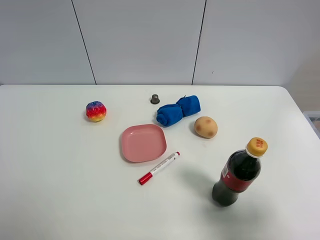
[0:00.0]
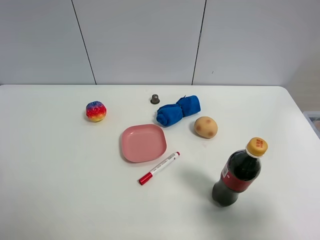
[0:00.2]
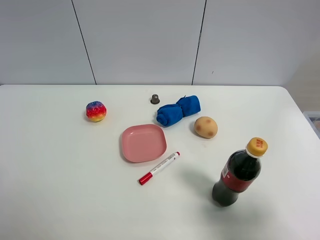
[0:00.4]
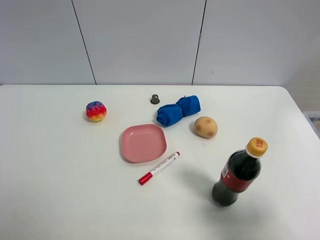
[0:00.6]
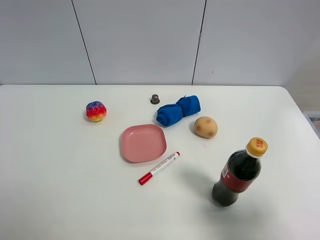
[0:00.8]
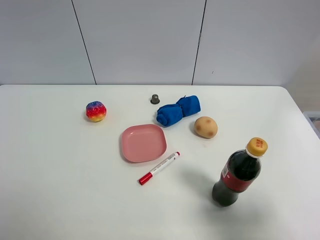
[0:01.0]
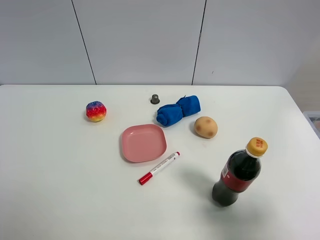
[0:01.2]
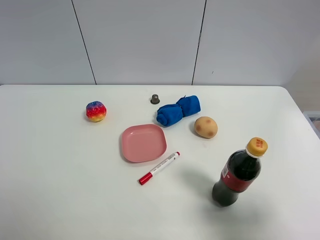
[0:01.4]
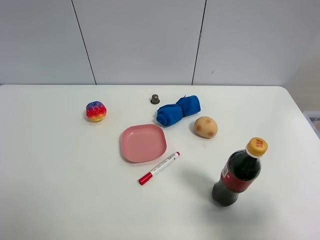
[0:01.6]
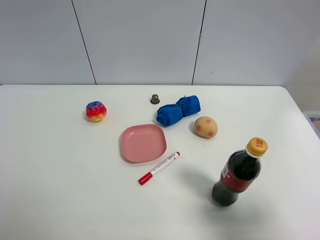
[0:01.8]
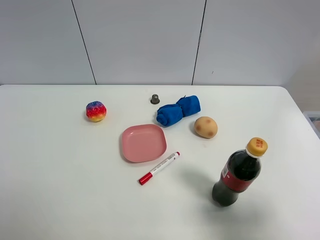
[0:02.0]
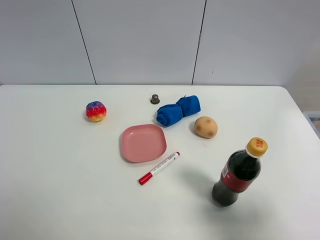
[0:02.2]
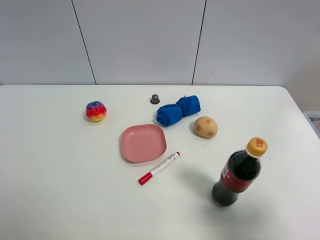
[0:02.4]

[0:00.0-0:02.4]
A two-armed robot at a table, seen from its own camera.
Task of the whole recording: the gripper move the object.
0:01.2 to 0:02.4: Both grippers stay about where they are.

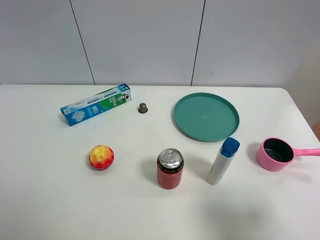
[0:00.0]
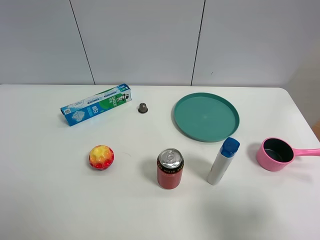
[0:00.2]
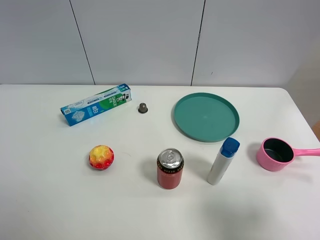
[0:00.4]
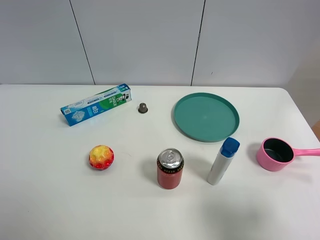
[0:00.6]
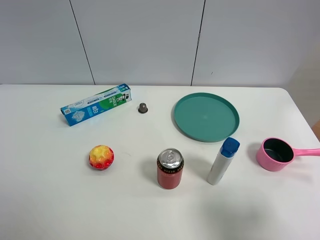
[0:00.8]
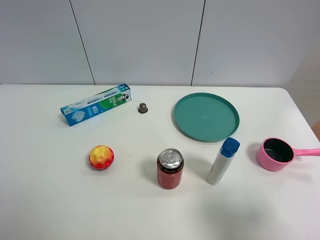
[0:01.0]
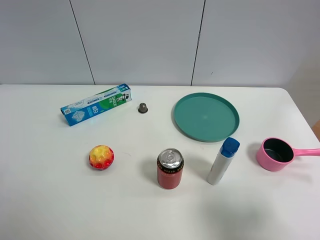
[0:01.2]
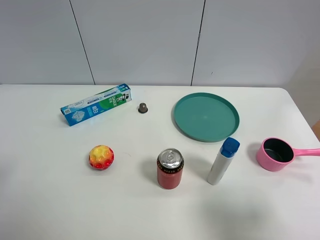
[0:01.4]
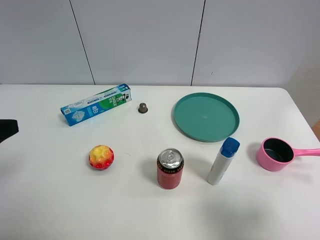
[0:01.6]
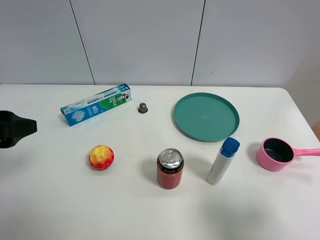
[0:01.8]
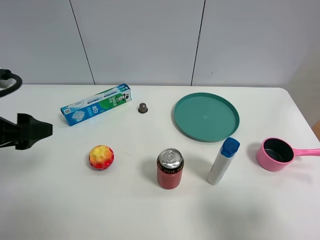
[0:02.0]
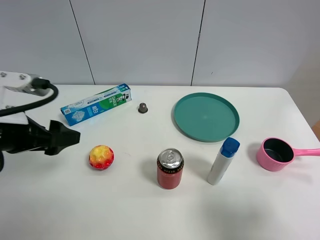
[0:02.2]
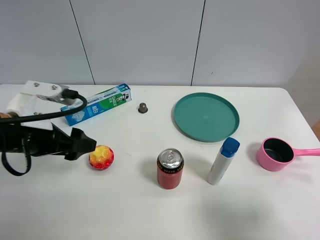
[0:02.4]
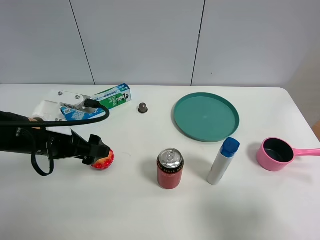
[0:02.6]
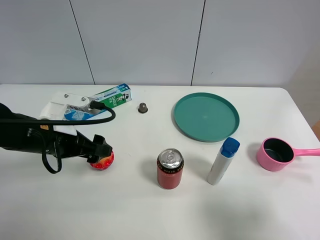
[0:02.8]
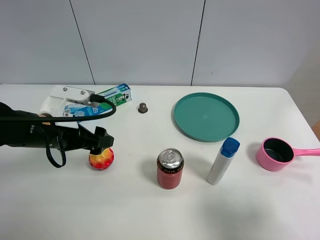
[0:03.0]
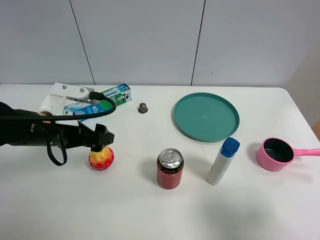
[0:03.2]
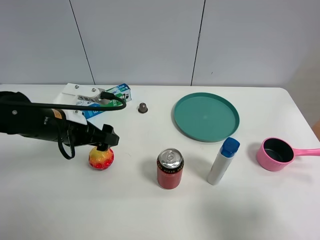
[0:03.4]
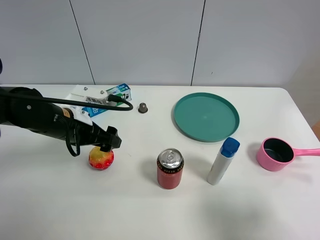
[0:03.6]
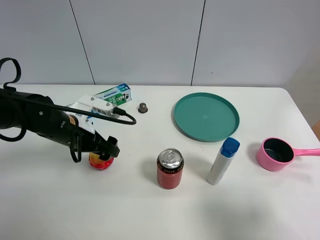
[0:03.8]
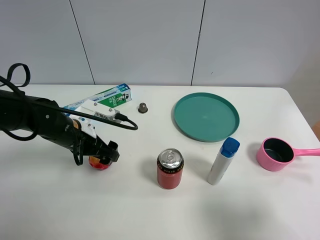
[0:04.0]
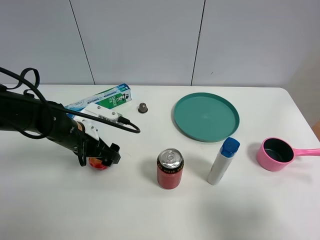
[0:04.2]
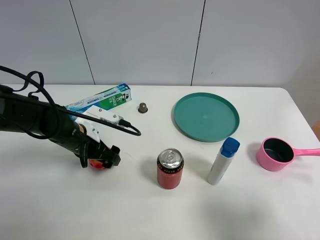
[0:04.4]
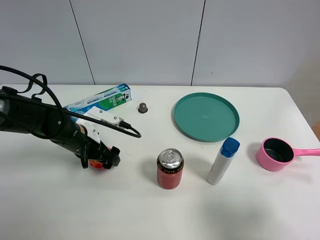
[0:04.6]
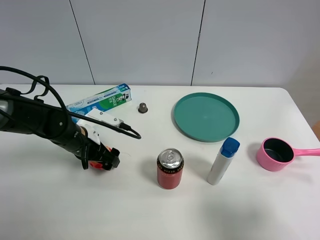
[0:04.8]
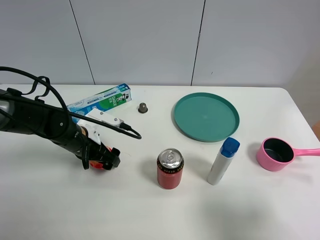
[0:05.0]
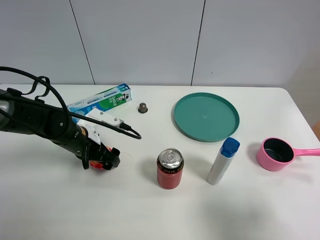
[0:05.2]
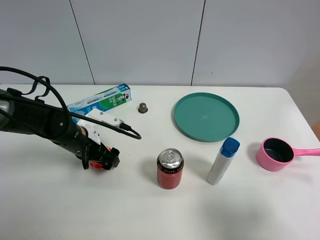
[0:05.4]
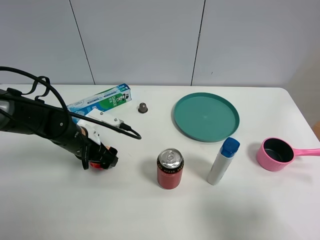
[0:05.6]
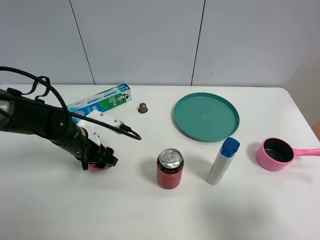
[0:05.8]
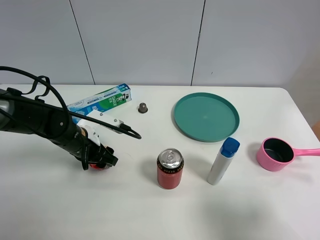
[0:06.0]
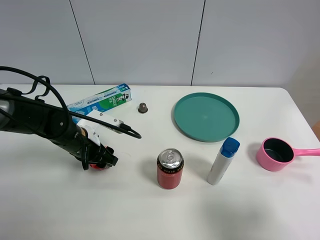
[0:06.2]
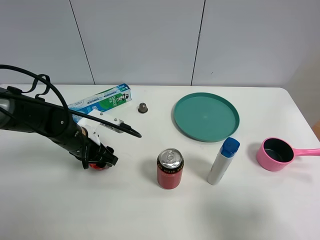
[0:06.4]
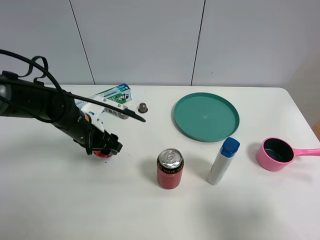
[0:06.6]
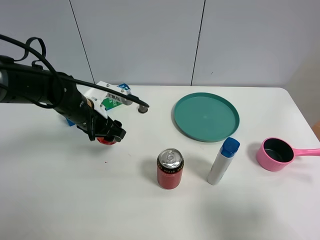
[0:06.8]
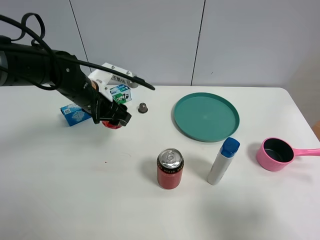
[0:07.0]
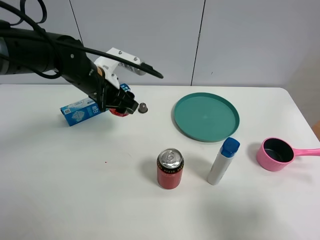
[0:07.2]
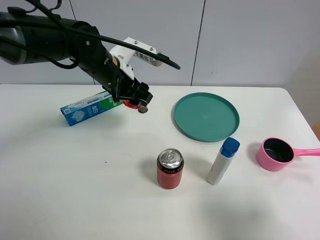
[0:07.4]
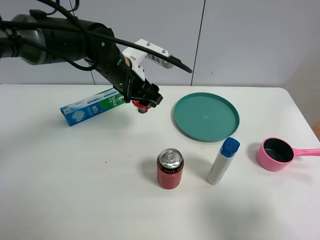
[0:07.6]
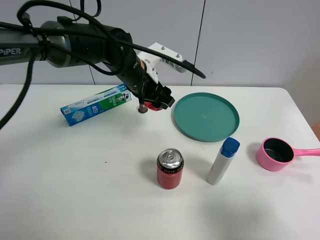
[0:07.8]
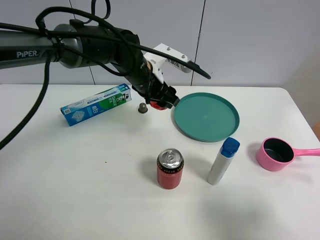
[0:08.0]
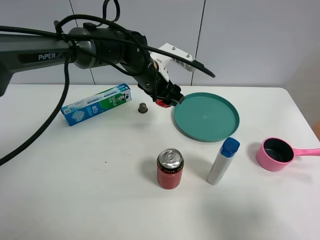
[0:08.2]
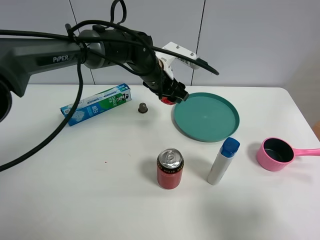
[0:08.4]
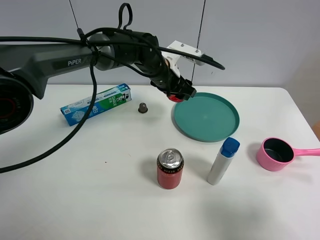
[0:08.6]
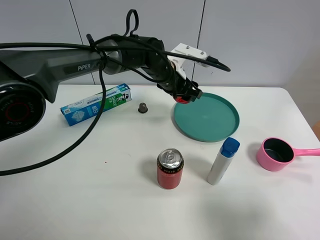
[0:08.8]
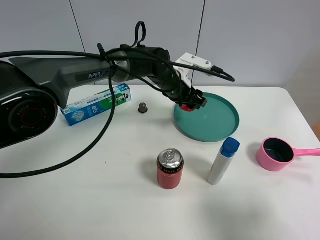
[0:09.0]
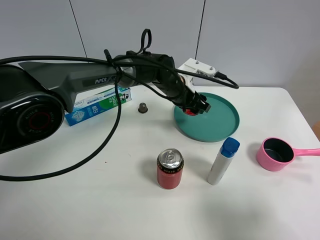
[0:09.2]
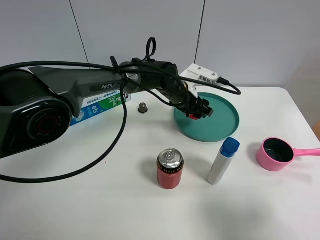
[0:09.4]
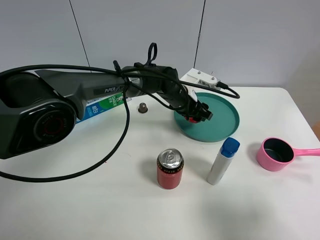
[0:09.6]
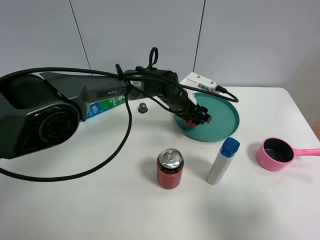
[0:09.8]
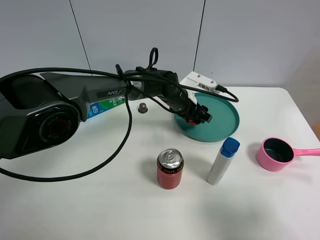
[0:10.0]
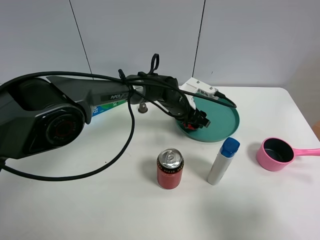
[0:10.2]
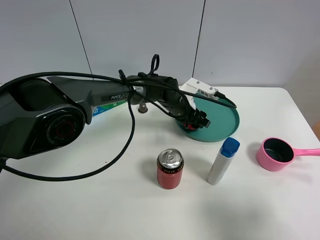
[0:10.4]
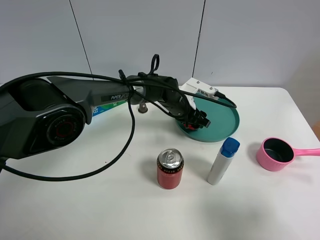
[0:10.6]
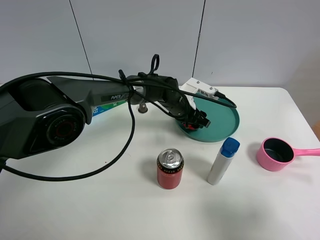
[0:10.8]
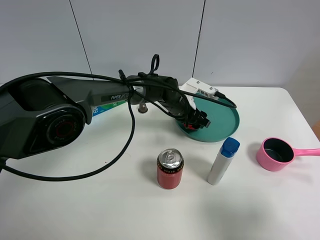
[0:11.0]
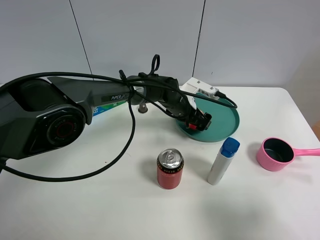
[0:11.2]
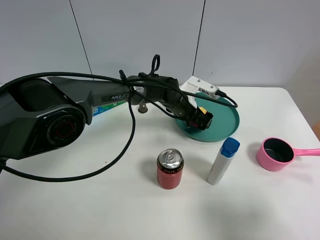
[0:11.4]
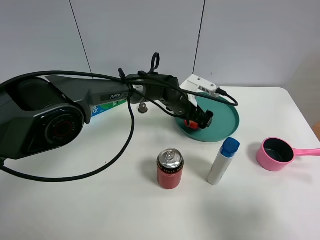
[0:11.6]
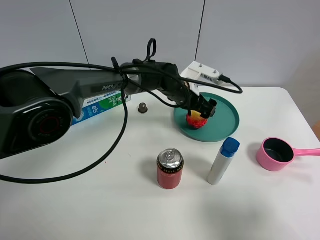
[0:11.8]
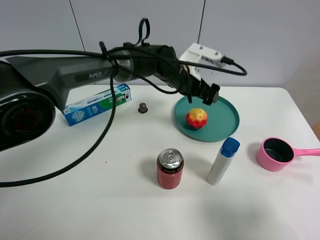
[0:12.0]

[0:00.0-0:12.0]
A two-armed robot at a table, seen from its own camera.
Task of the whole recording: the gripper move the object.
Step, 0:00.0 to 0:05.8: Grasp the colorful ball with the left gripper.
Step, 0:06.0 to 0:11.2: Place the colorful ball into the green plate with the left gripper.
0:01.6 to 0:03.0: The left gripper moves forward, downward and to the right, about 20 cm.
0:03.0 to 0:04.4: The left gripper heads downward, covering some 10 cm.
0:04.4 to 0:06.0: The left gripper closes its fingers.
0:06.0 to 0:07.6: The left gripper moves upward, to the right and forward, about 20 cm.
0:07.6 to 0:09.0: The left gripper goes roughly 15 cm to the right, downward and forward.
0:09.0 to 0:10.4: The left gripper travels downward by approximately 5 cm.
0:10.4 to 0:12.0: The left gripper heads upward, covering approximately 10 cm, and opens its fingers.

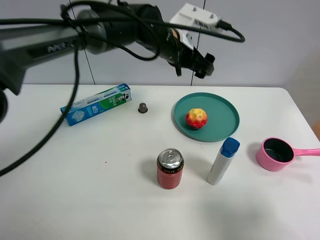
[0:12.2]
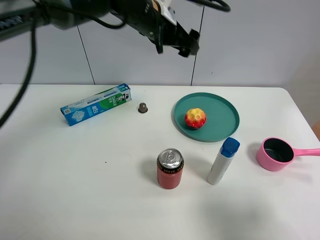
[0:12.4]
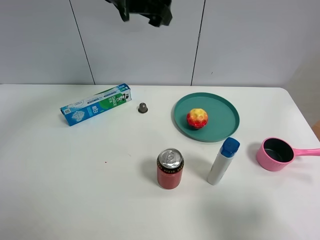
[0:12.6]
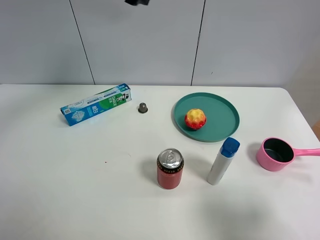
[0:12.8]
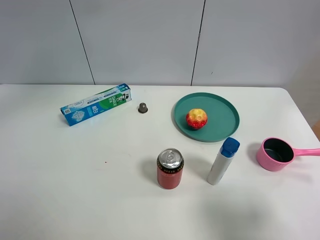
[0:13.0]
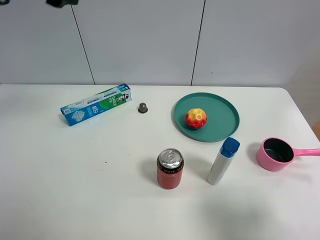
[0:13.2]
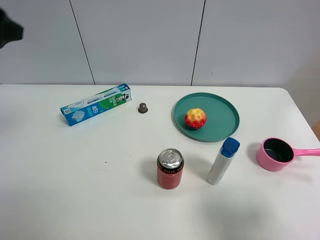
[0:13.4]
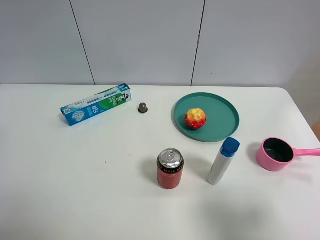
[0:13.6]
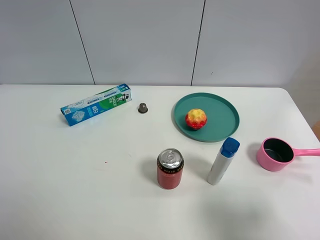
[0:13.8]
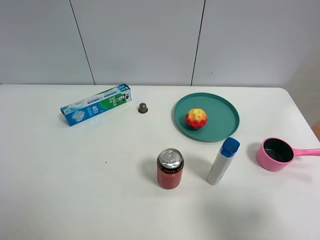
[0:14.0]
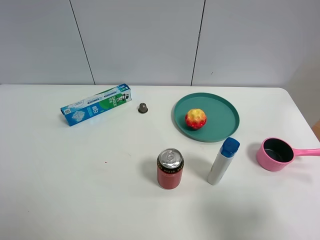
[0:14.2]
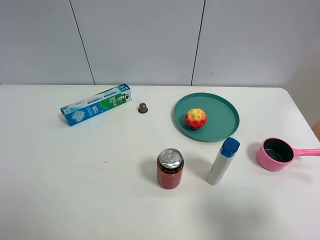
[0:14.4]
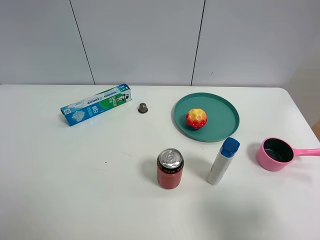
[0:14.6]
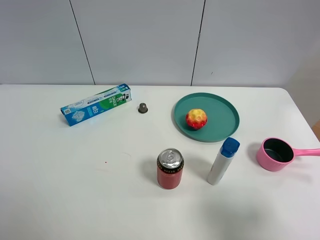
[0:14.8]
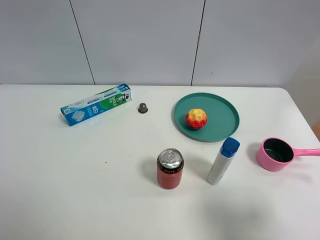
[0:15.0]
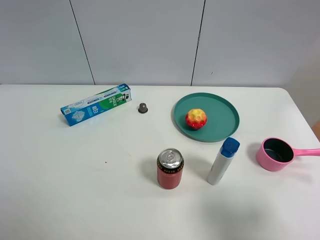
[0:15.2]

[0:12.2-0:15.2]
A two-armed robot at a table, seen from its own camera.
Task of the whole recording: the gripper move the object.
0:12.2 to 0:13.8: The left gripper moves to the left and backward, roughly 50 cm.

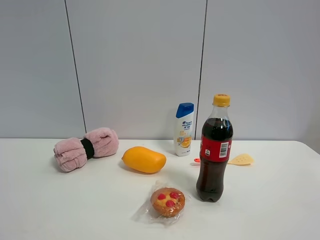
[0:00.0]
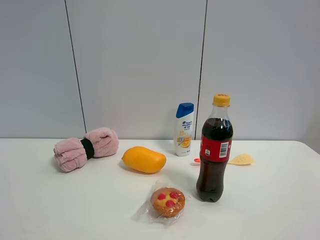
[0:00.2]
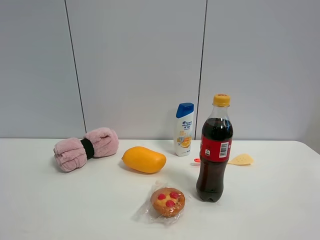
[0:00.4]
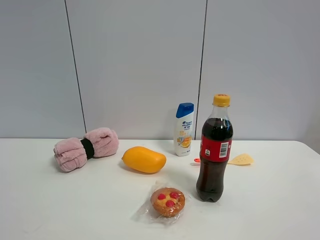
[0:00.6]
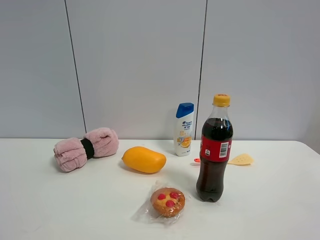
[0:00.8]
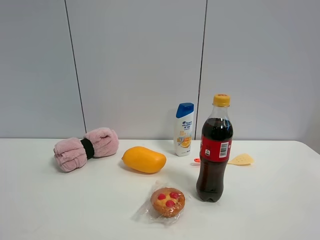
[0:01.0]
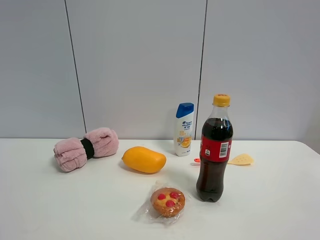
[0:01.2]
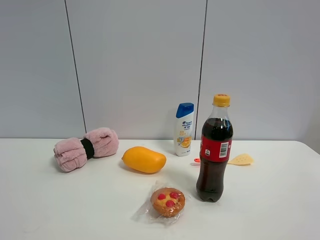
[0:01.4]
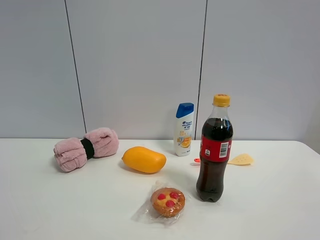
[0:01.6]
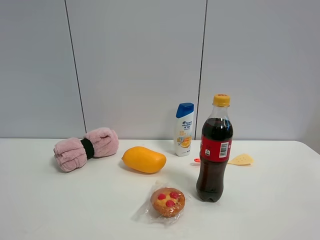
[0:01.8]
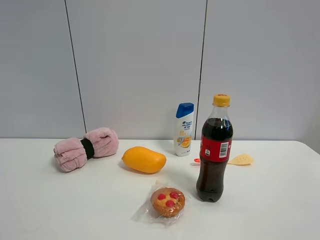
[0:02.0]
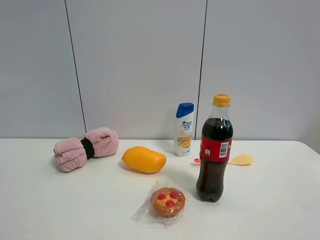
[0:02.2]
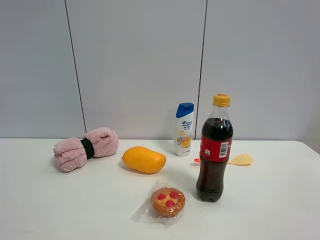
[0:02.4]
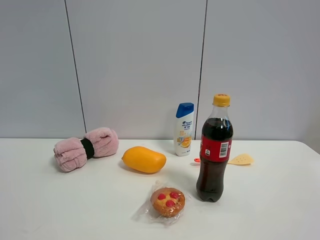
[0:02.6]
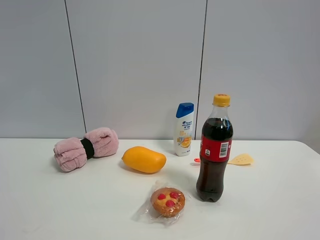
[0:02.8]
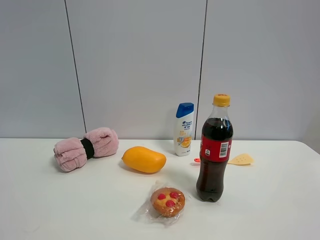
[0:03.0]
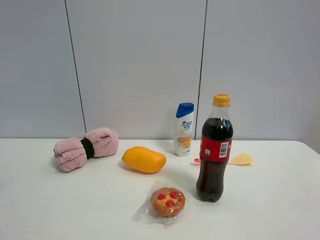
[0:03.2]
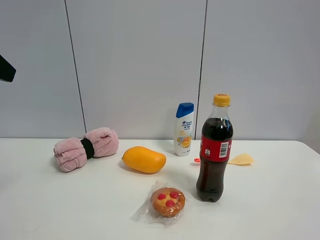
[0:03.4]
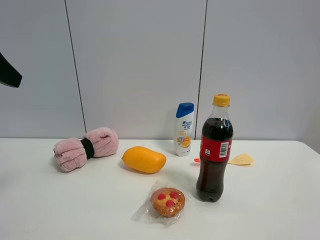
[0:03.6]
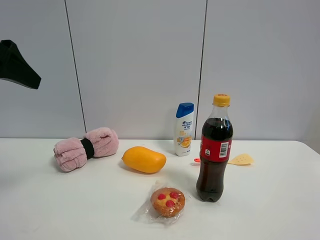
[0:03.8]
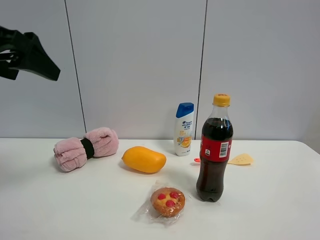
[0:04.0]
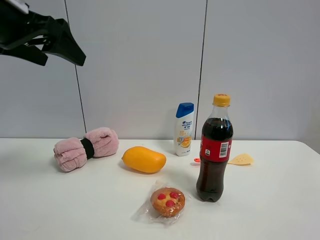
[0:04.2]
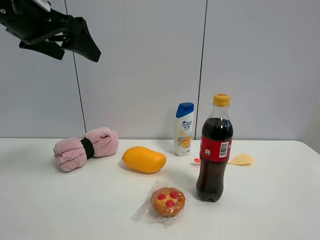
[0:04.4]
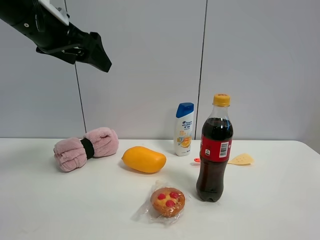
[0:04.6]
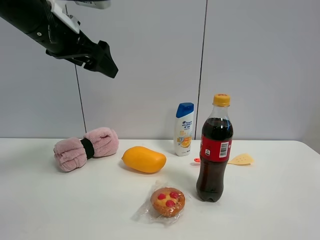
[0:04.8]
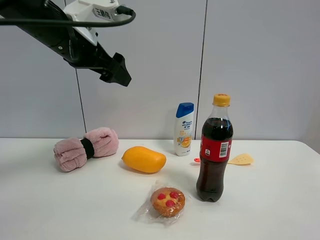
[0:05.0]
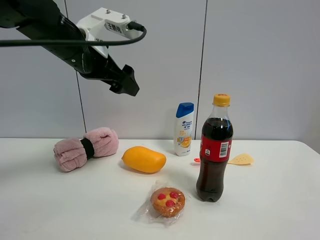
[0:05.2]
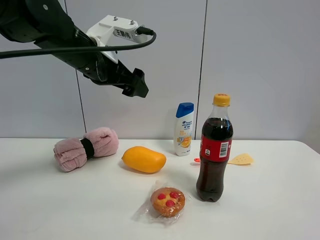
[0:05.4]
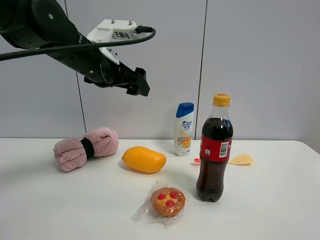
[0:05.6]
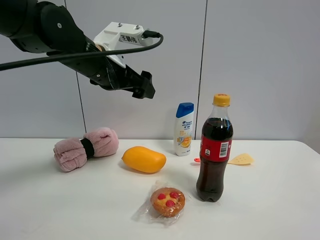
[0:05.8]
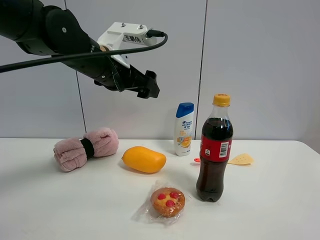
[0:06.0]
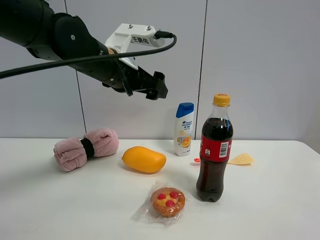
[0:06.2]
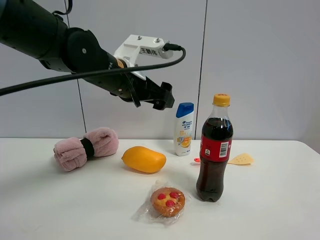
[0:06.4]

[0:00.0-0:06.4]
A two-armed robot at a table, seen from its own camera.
Task of the whole recording: the gripper move the object.
0:00.0 to 0:01.6: The two grippers keep their place.
0:03.2 to 0:04.8: The left gripper heads forward and to the right, covering approximately 20 cm.
0:04.8 to 0:06.4: The left gripper travels to the right and downward by approximately 15 cm.
